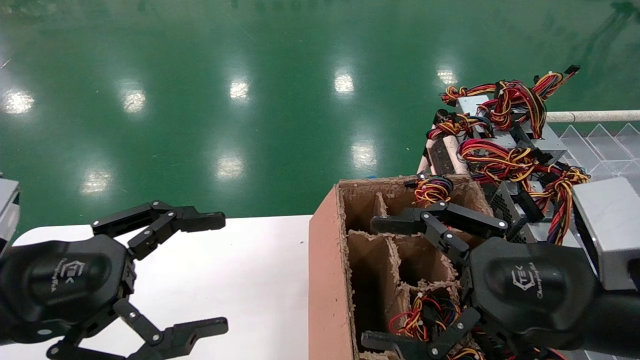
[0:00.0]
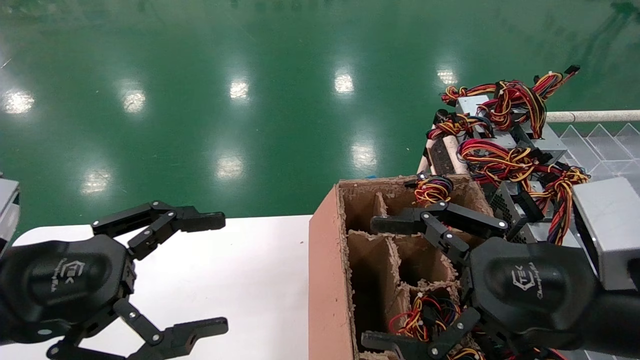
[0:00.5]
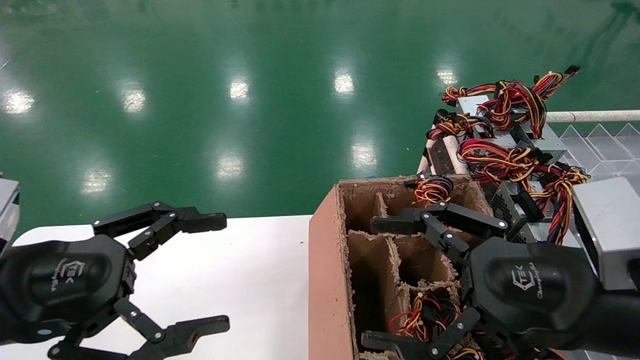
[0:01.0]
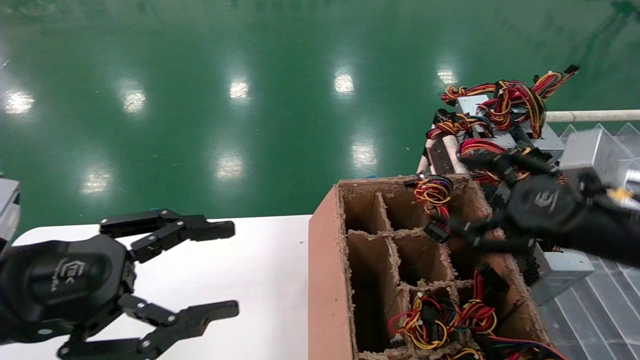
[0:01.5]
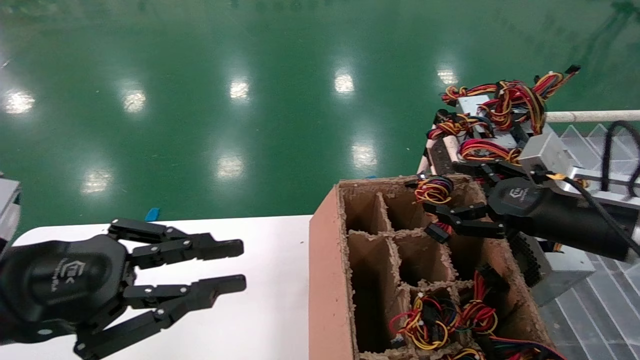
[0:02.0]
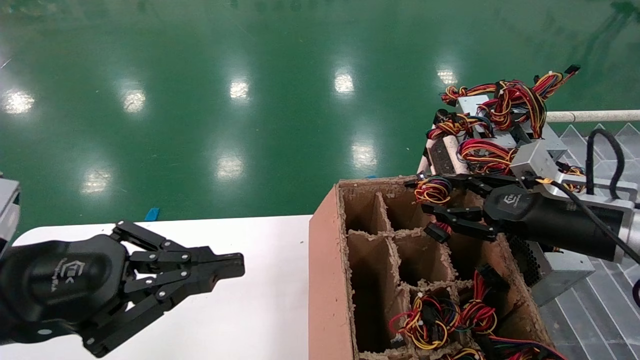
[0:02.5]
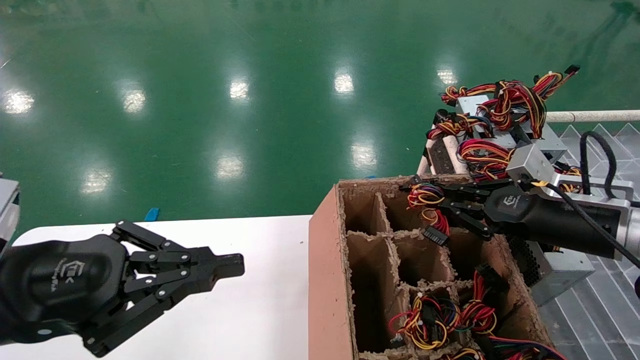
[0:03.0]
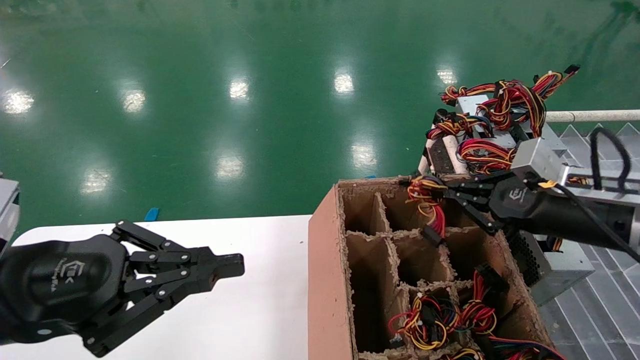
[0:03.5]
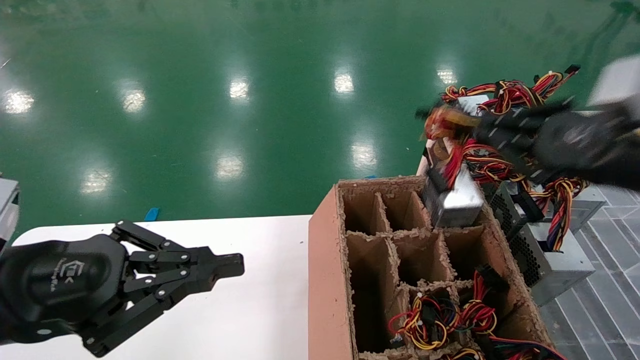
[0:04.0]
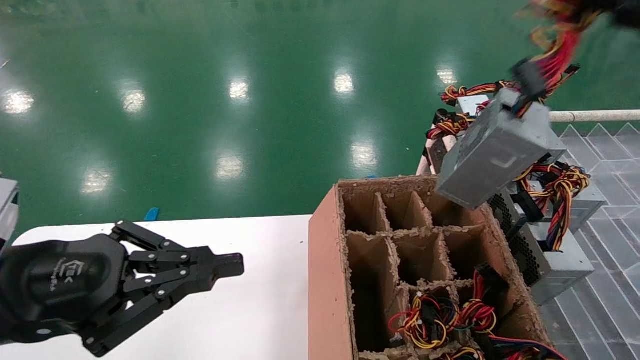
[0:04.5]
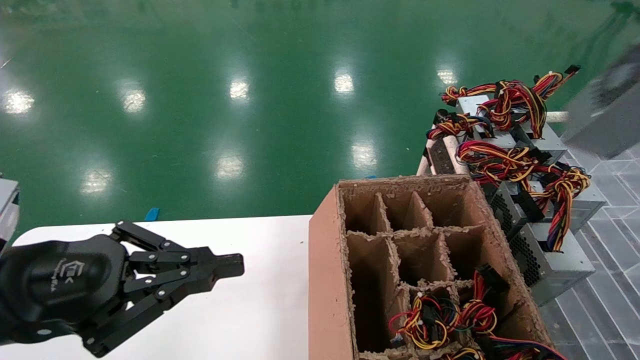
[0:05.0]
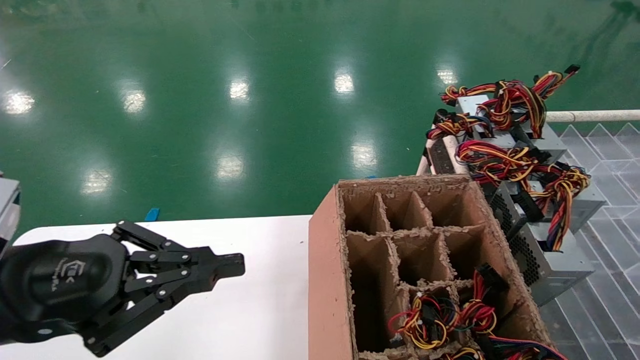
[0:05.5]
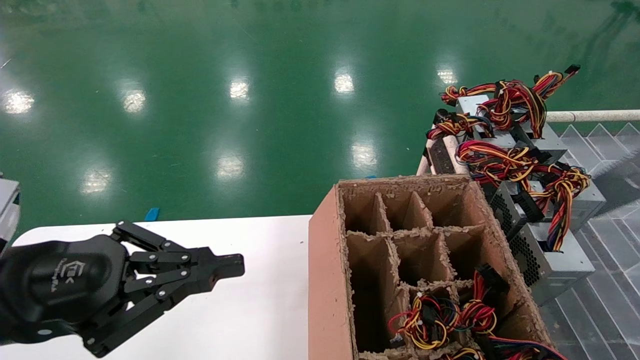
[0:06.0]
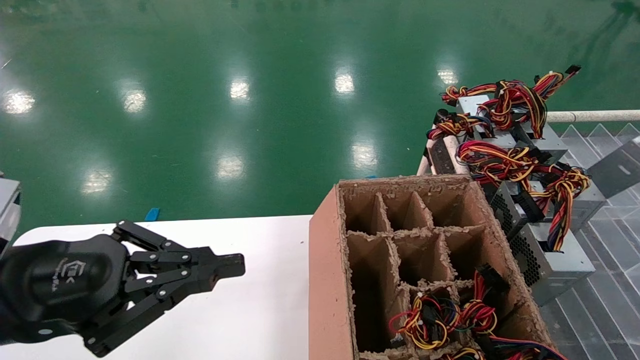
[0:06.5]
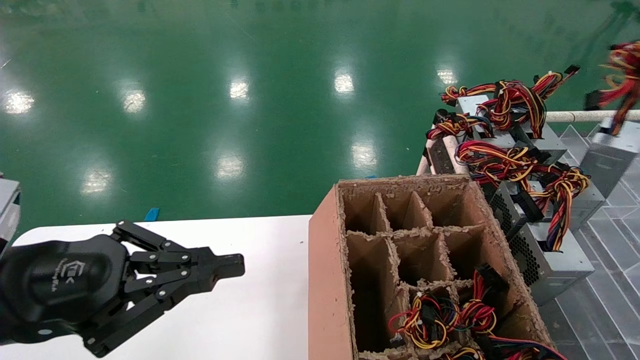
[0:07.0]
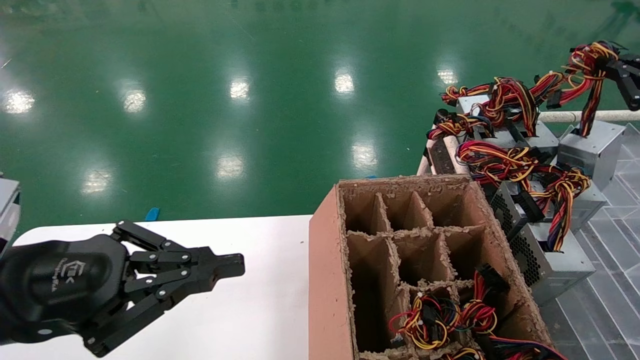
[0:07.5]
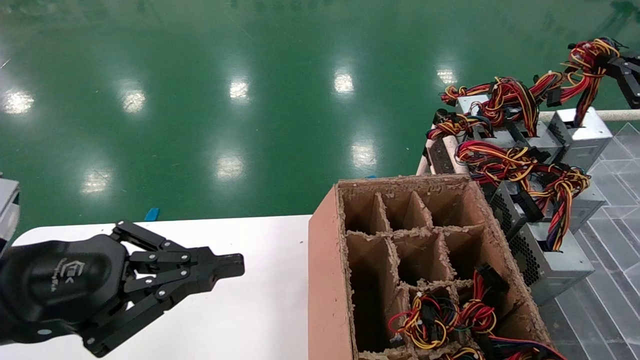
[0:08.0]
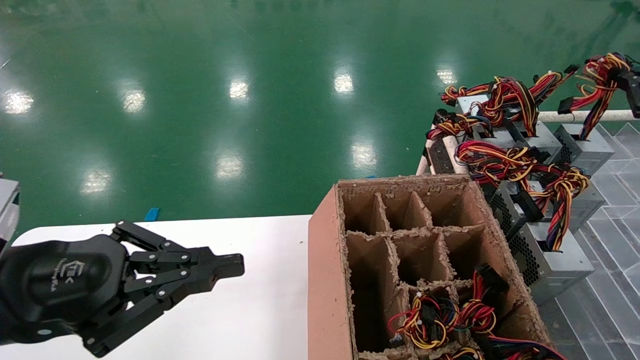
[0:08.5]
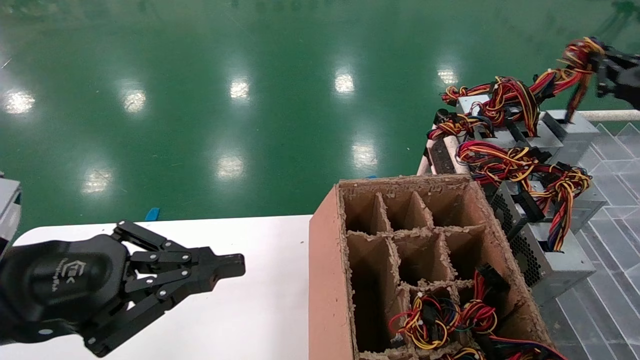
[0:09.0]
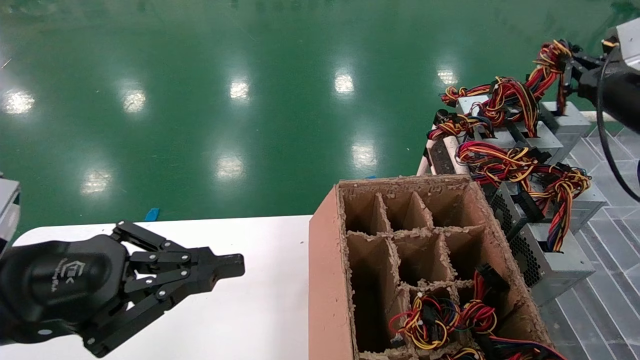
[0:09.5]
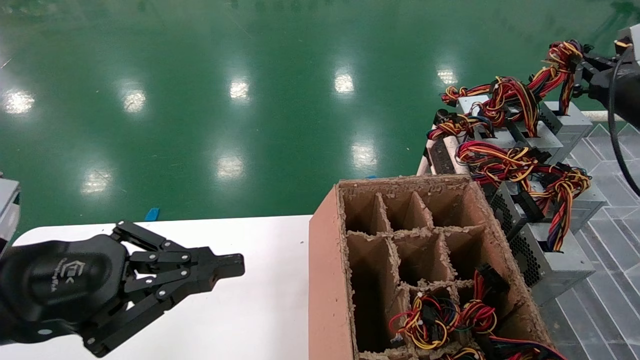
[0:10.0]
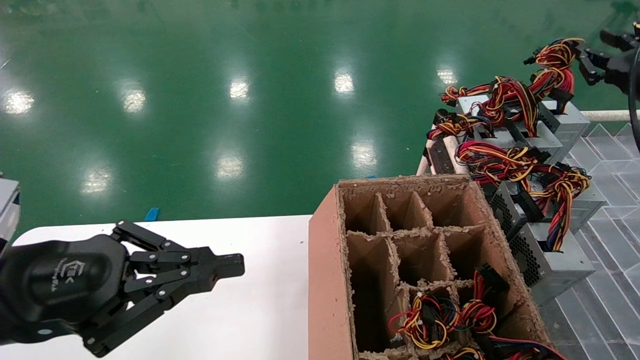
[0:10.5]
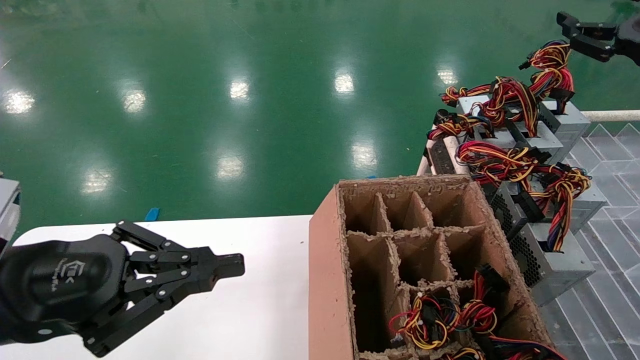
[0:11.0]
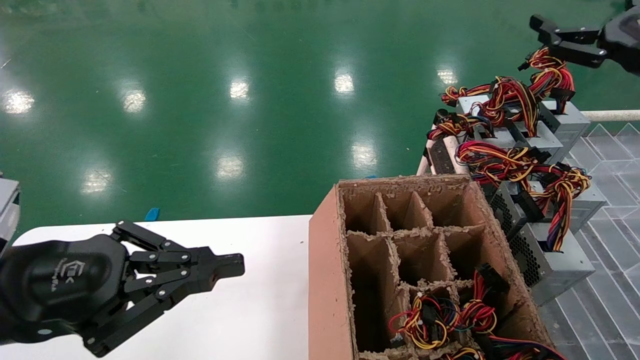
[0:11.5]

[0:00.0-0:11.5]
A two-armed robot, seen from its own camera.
Step, 0:01.5 to 0:03.0: Grab the main unit power supply from the containment box.
Step, 0:03.5 to 0:10.5: Place the main unit power supply in the designated area.
0:00.0 to 0:02.0: The right gripper travels forward and to the right by roughly 15 cm. The left gripper closes up.
0:02.0 to 0:04.0: The right gripper moves upward and backward, about 10 cm, and closes its fingers.
0:04.0 to 0:06.0: The right gripper moves to the right, roughly 20 cm.
0:06.0 to 0:07.5: The right gripper travels forward and to the left by about 15 cm.
0:07.5 to 0:09.5: The right gripper goes some 10 cm forward and to the left.
0:09.5 to 0:11.5: The right gripper travels backward by about 10 cm, and opens its fingers.

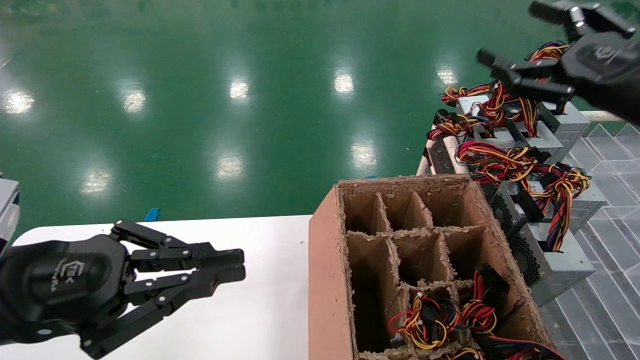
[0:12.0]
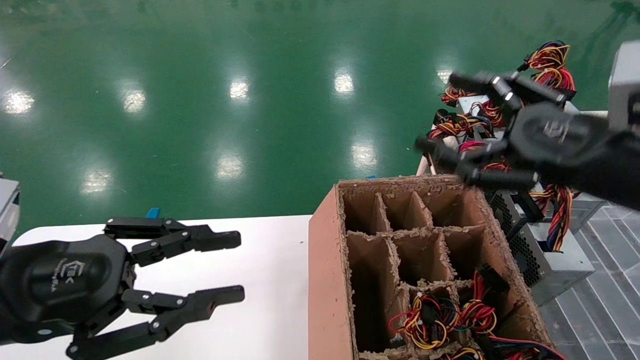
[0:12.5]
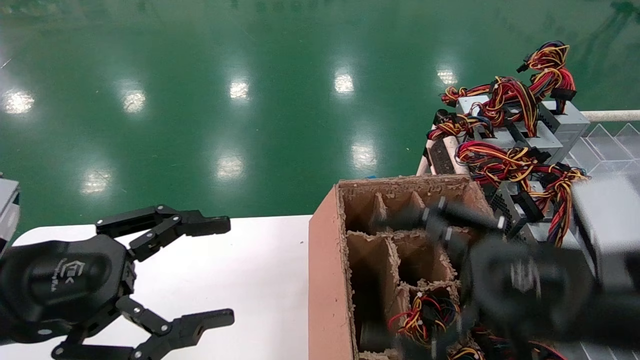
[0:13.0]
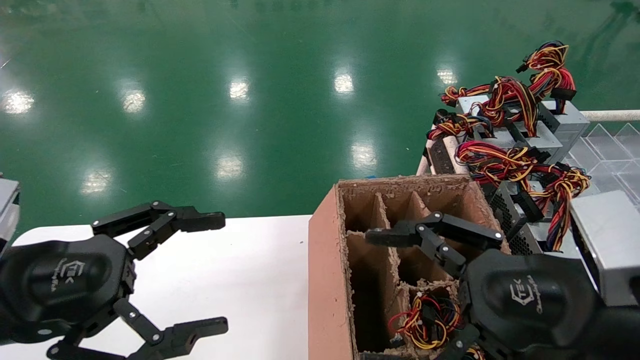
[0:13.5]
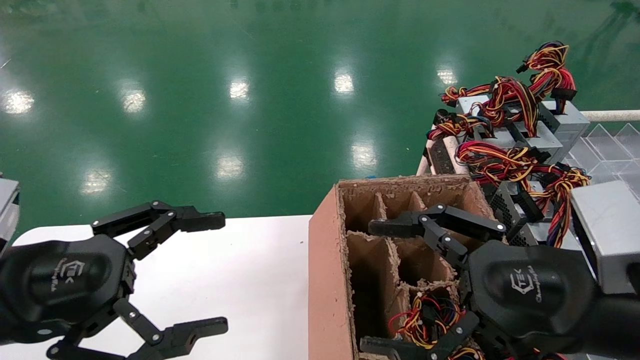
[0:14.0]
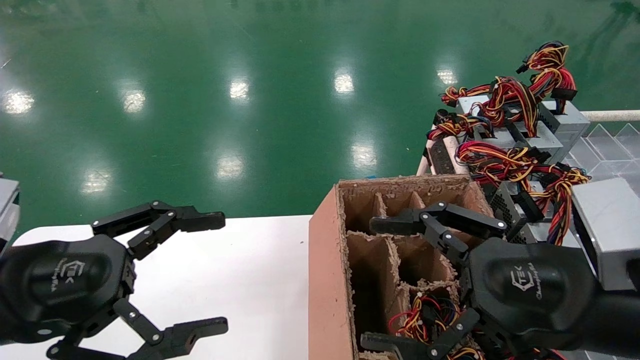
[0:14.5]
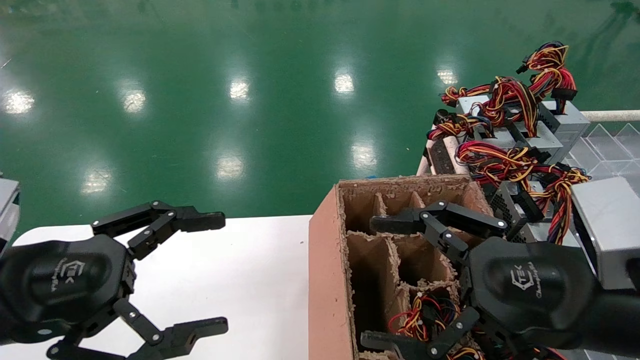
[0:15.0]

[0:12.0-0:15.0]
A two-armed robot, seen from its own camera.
0:12.0 to 0:13.5: The right gripper moves to the left, backward and downward, approximately 20 cm; the left gripper opens.
0:13.5 to 0:15.0: The two grippers keep their place.
